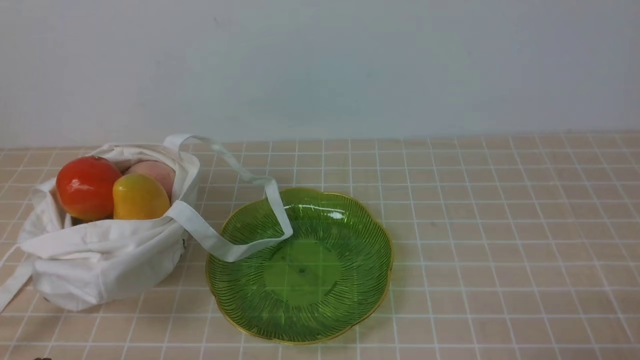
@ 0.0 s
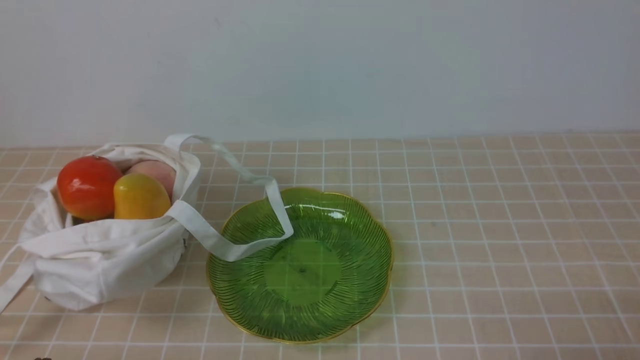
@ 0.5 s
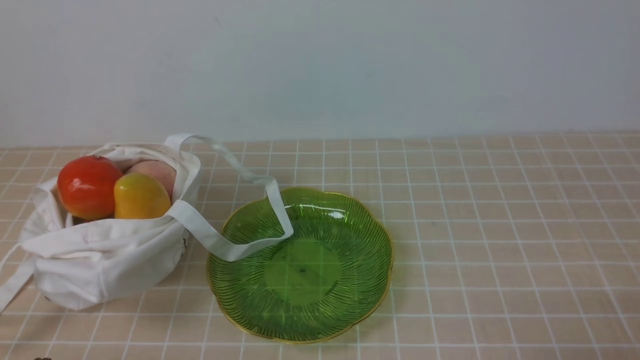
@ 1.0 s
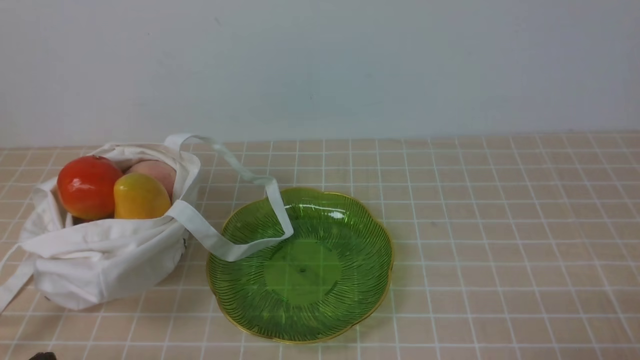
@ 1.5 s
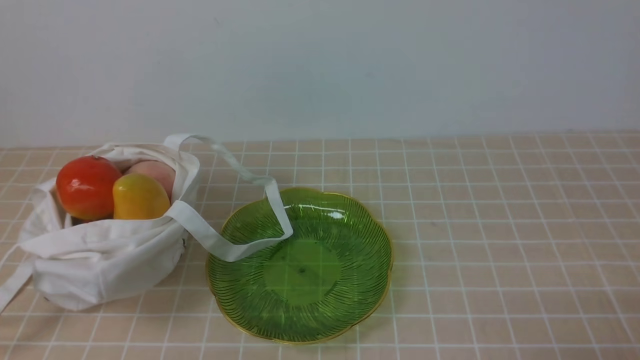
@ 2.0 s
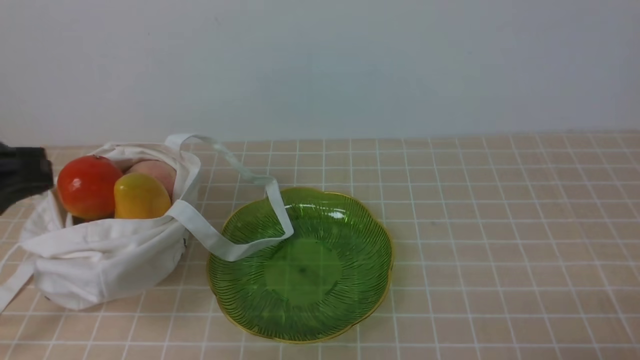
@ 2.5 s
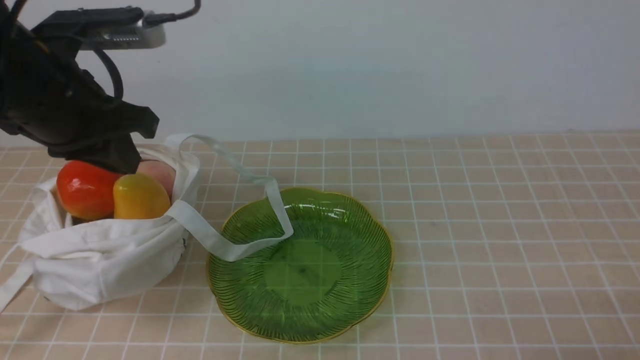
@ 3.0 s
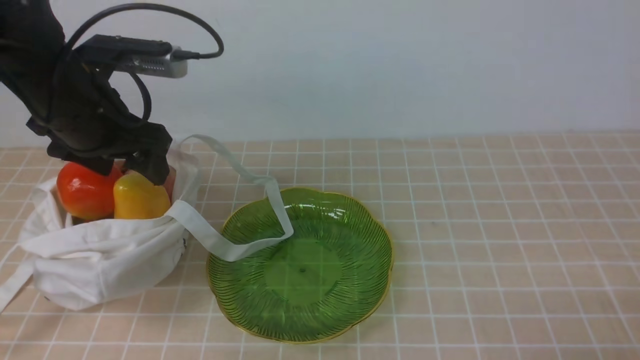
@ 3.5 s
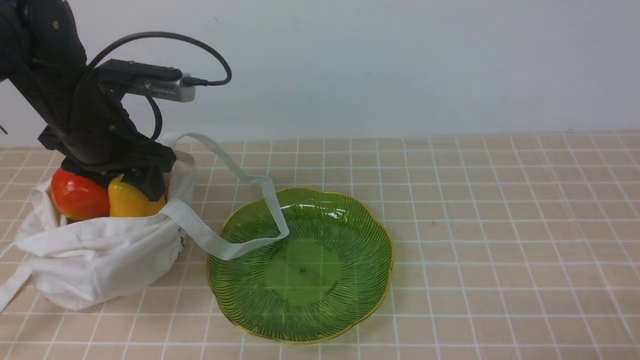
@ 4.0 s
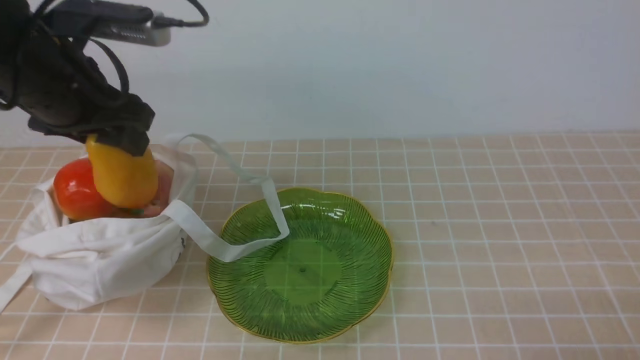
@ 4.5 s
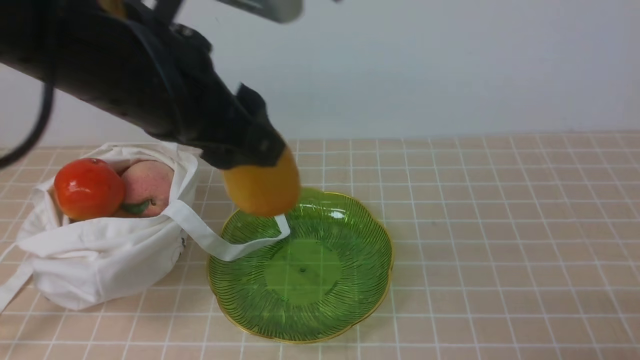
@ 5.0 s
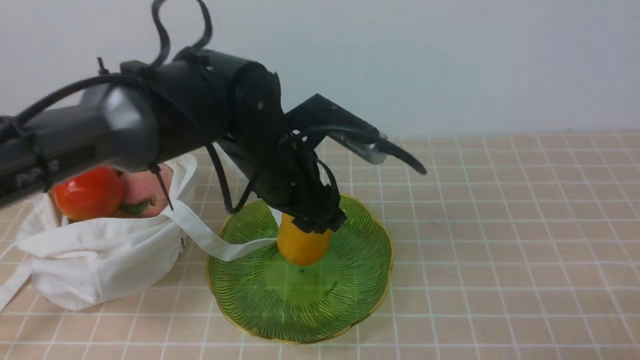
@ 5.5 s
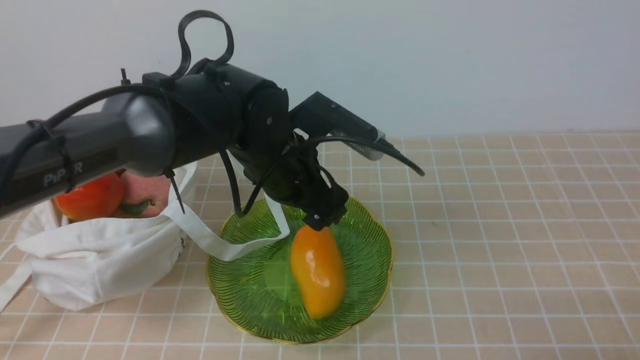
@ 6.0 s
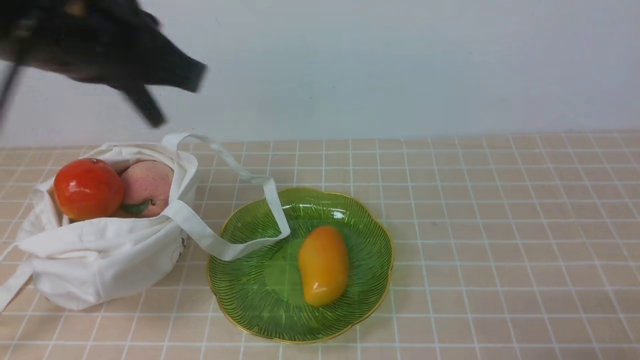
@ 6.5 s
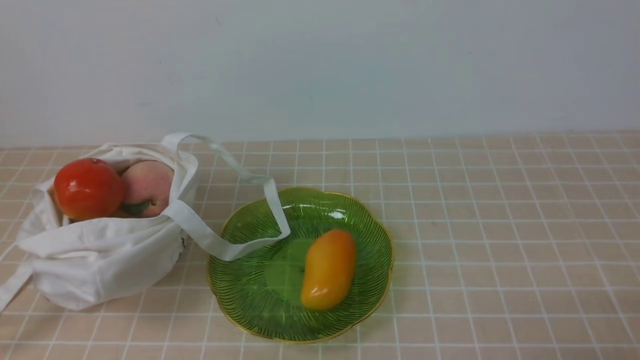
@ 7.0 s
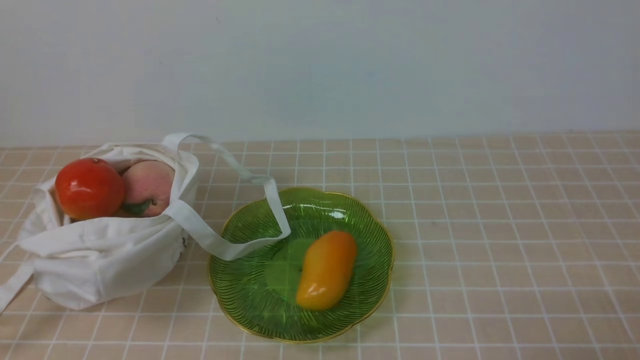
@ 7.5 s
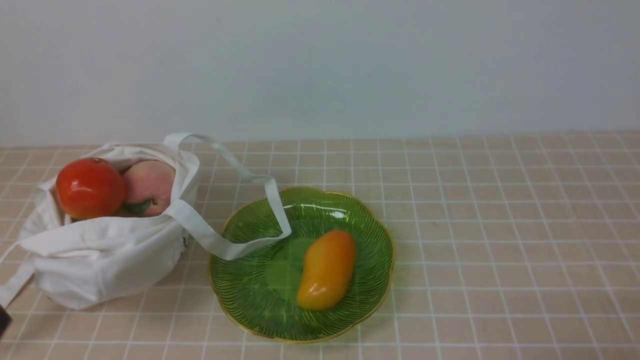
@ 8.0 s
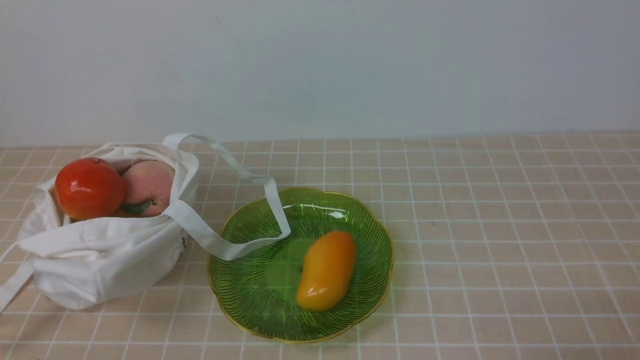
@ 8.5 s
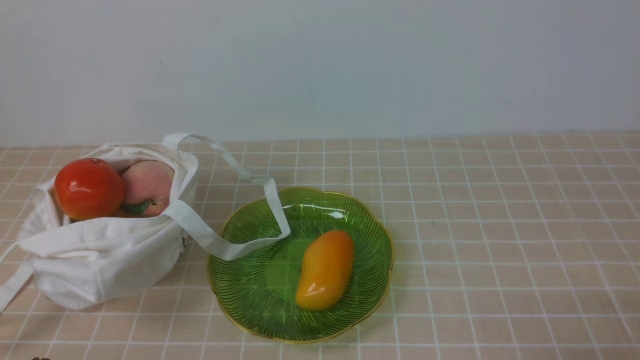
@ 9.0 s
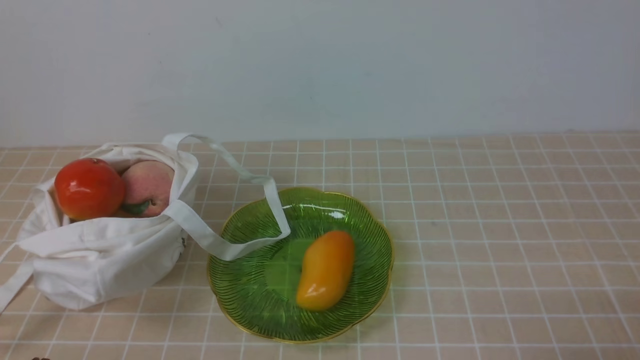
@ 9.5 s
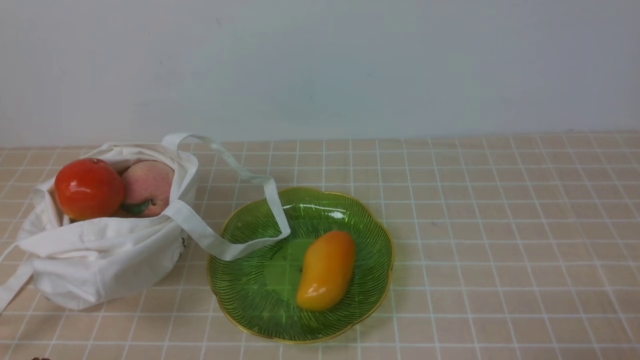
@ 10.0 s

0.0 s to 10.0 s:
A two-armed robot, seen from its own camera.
Step, 0.0 to 4.0 s: use the left arm to grab a mango from the bag.
Step, 4.5 to 5.5 s: use the left arm to put the mango into the empty plate on the right.
2.0 to 4.0 s: The left gripper is displaced forward by about 30 cm, and opens up.
4.0 to 6.0 s: The left gripper heads to the right, covering roughly 15 cm.
6.0 to 8.0 s: The left gripper travels backward and to the left by roughly 35 cm, and closes.
